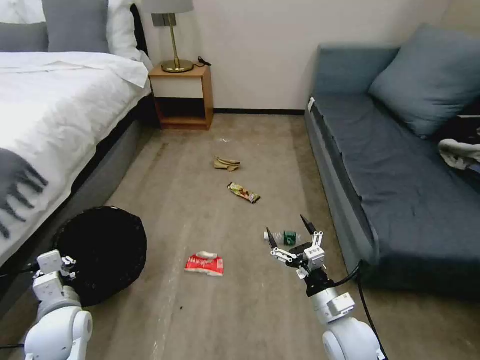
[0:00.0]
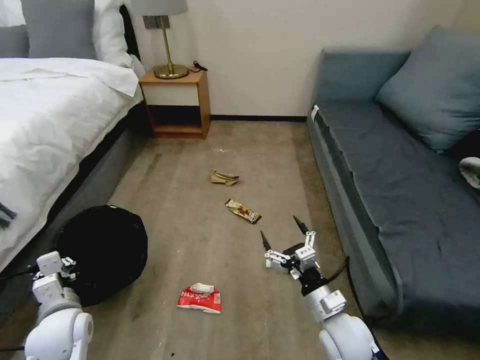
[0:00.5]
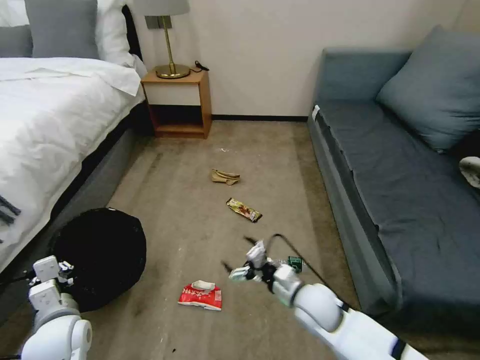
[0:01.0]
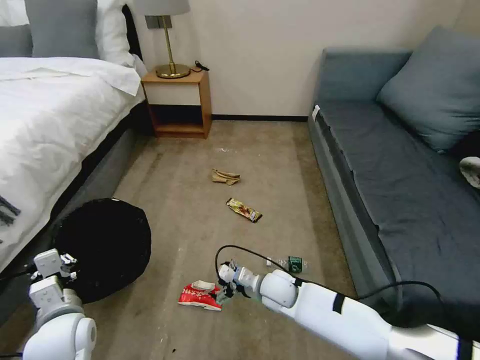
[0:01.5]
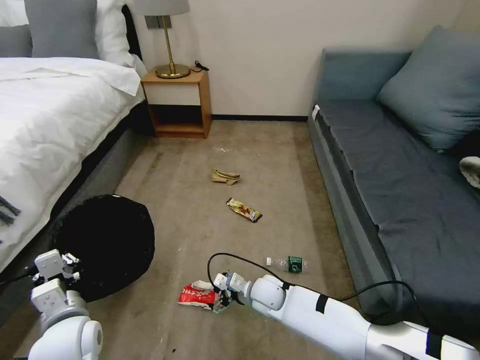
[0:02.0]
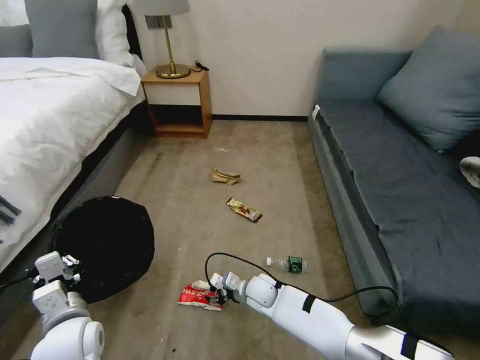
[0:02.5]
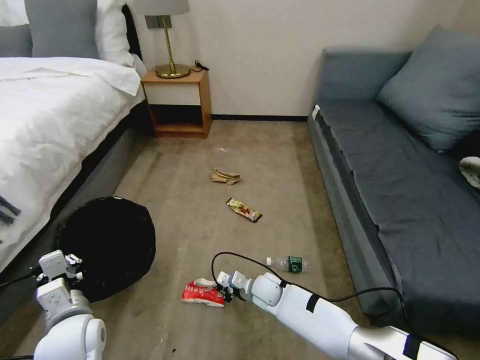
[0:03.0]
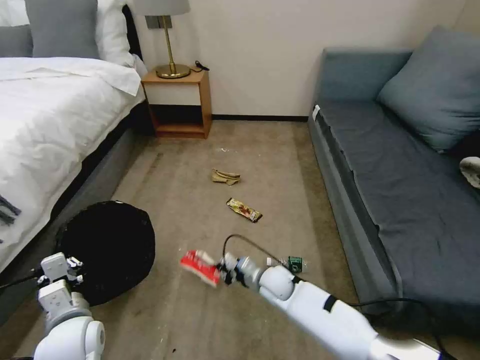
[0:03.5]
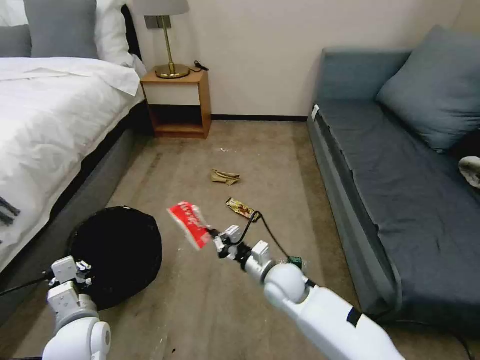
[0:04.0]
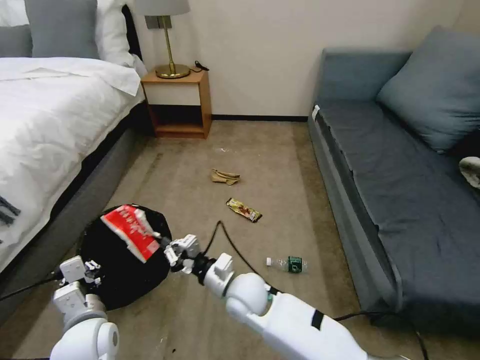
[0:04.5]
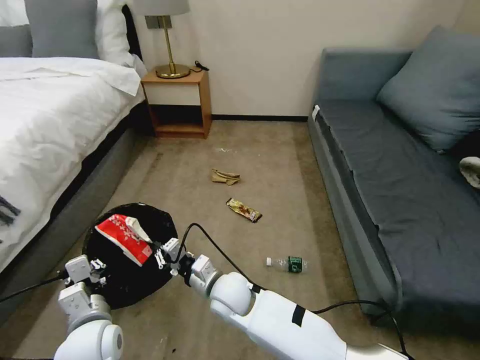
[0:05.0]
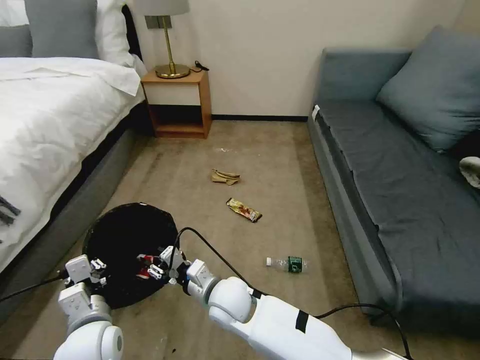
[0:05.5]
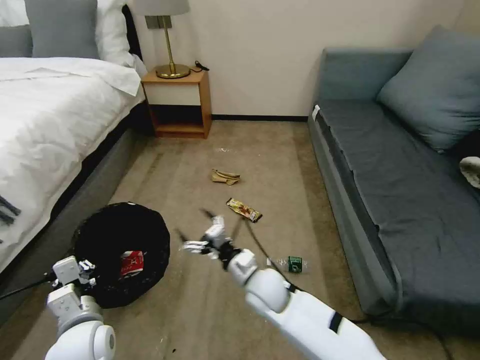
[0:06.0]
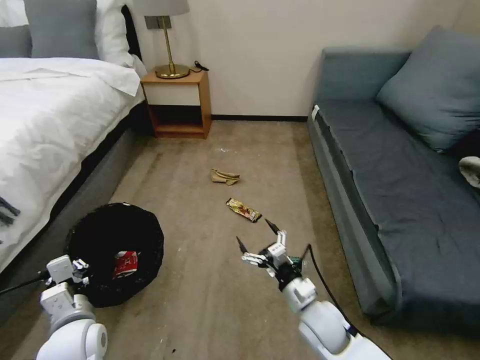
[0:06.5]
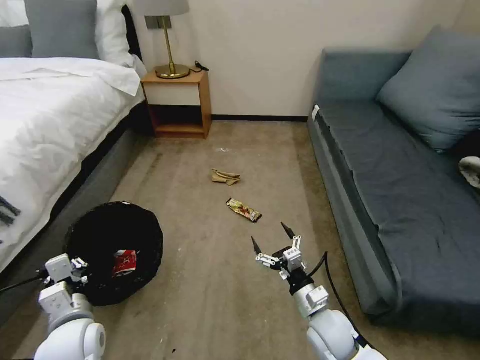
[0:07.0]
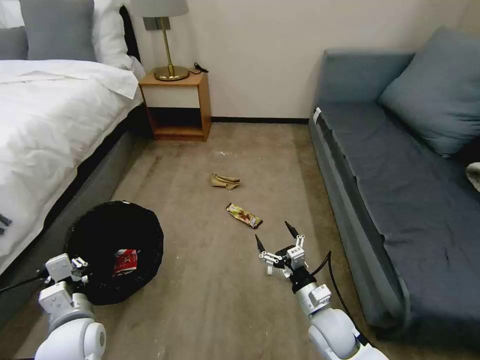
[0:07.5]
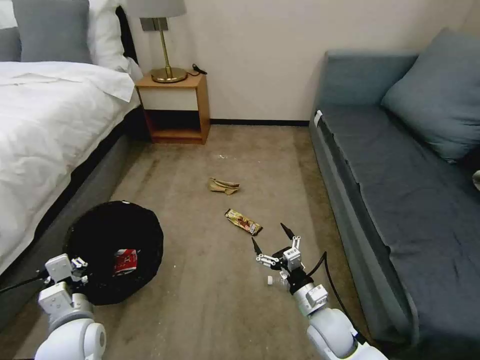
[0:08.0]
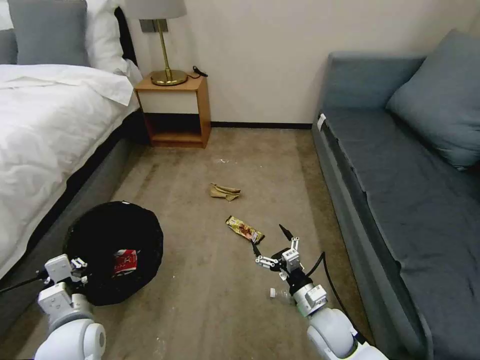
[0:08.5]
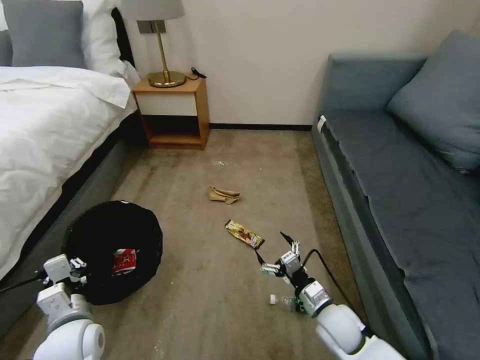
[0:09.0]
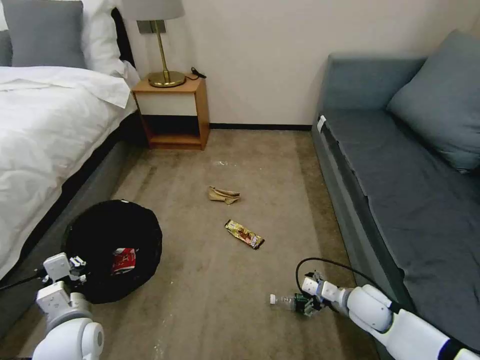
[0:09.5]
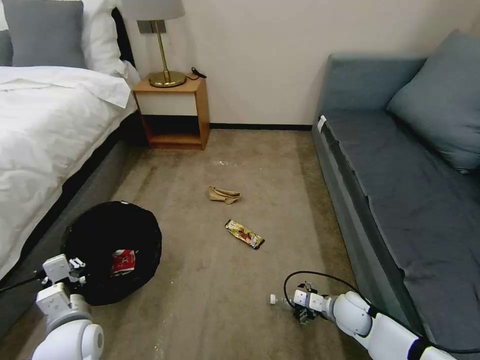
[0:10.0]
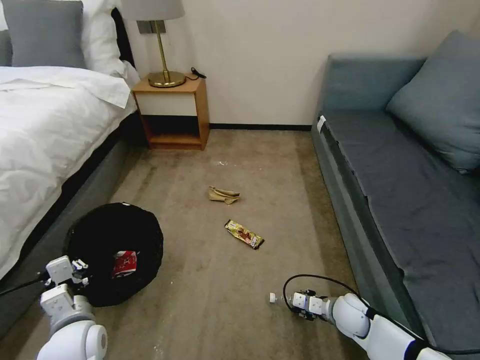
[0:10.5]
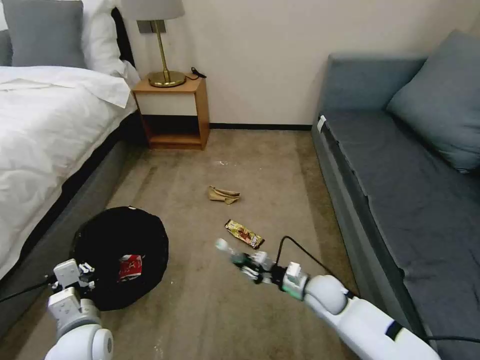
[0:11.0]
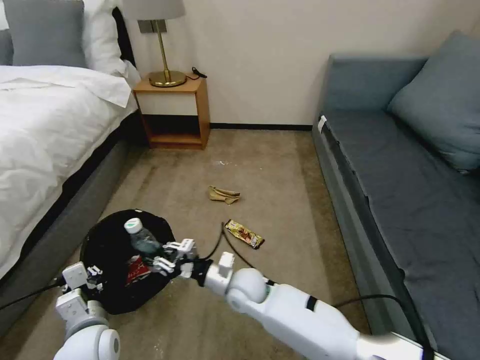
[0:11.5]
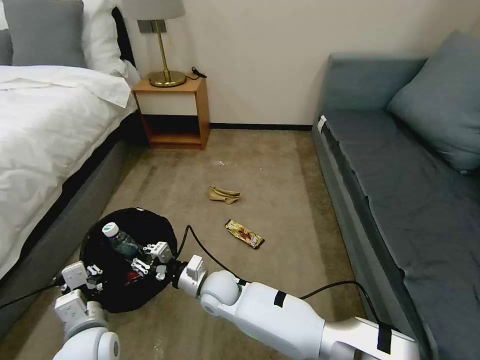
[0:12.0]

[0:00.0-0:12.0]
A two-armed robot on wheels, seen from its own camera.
Task of the whole recording: Pick up the trash bin, then pick up the garbage on the floor and place it into the trash bin.
0:00.0 to 0:02.0: The left gripper goes roughly 5 cm to the right; the right gripper travels to the left, forward and downward by about 20 cm.
0:02.0 to 0:04.0: The right gripper moves upward, approximately 10 cm, and closes up.
0:04.0 to 0:06.0: The right gripper reaches some 15 cm to the left, then returns, and opens up.
0:06.0 to 0:08.0: The right gripper is displaced to the right and backward by about 15 cm.
0:08.0 to 0:10.0: The right gripper shifts approximately 10 cm to the right and forward.
0:10.0 to 0:12.0: The right gripper travels to the left by some 35 cm, and closes its fingers.

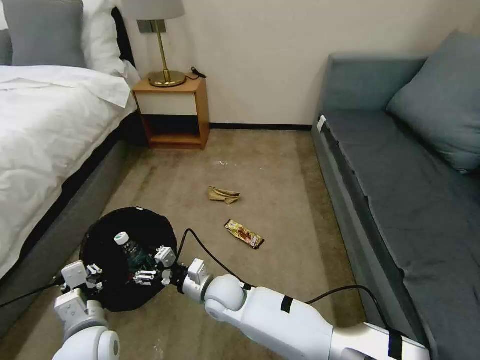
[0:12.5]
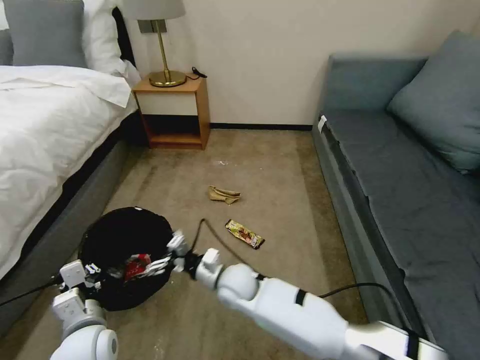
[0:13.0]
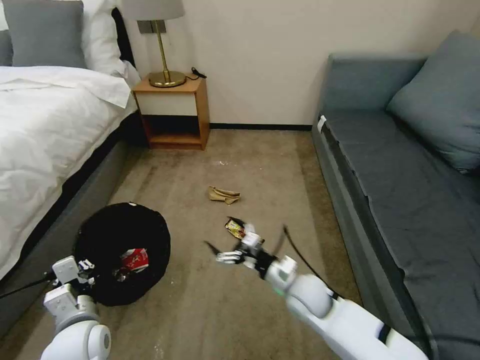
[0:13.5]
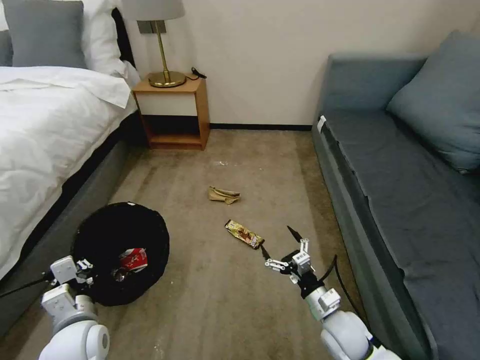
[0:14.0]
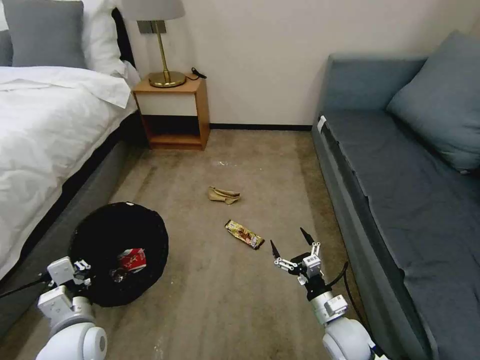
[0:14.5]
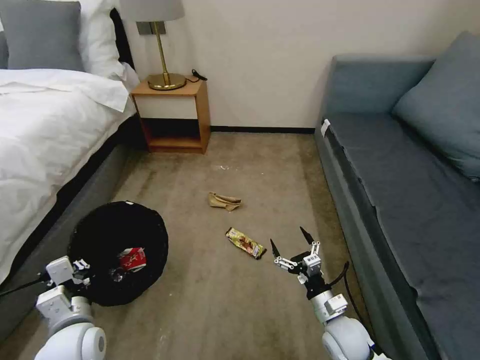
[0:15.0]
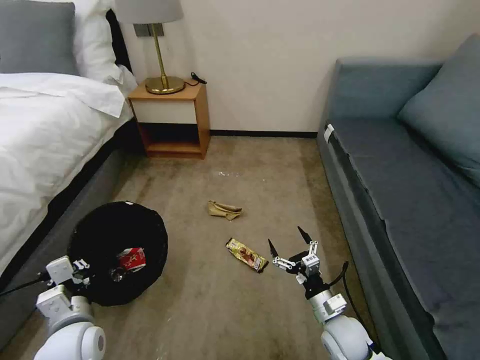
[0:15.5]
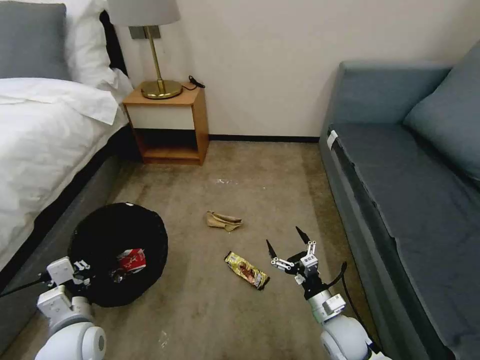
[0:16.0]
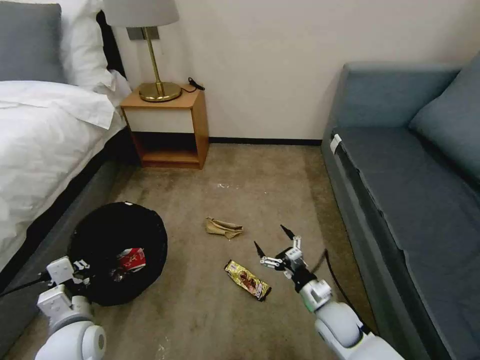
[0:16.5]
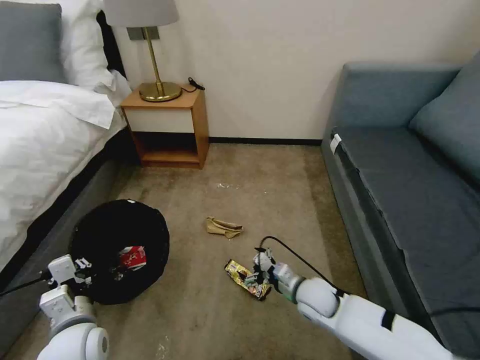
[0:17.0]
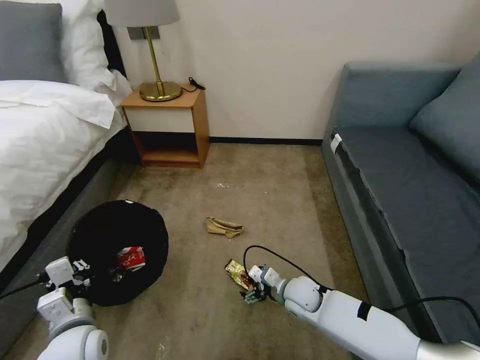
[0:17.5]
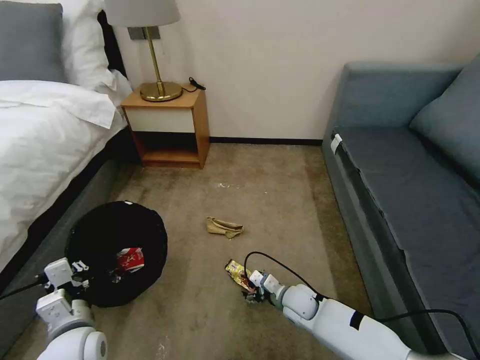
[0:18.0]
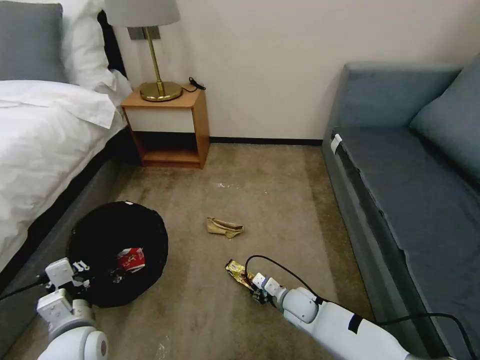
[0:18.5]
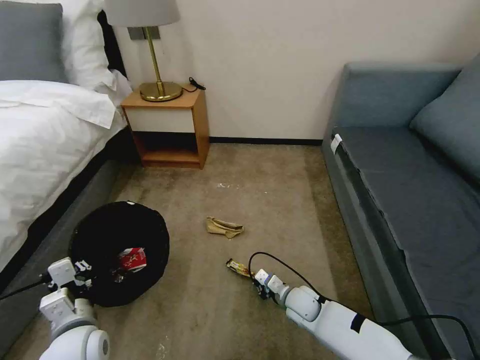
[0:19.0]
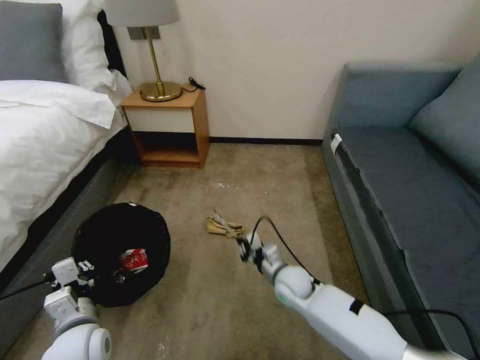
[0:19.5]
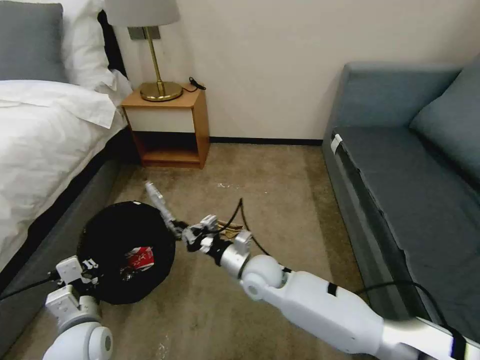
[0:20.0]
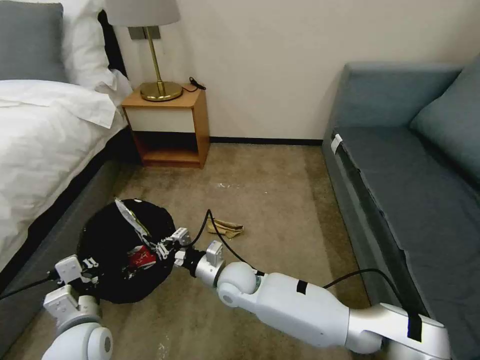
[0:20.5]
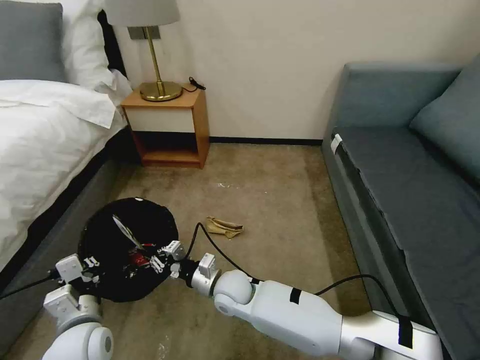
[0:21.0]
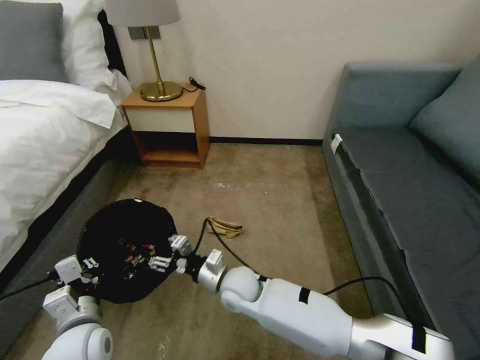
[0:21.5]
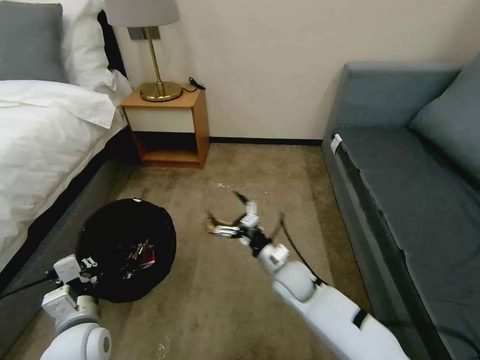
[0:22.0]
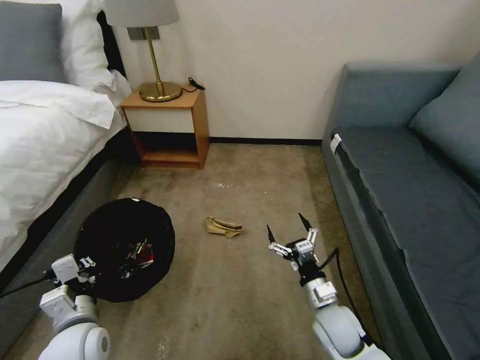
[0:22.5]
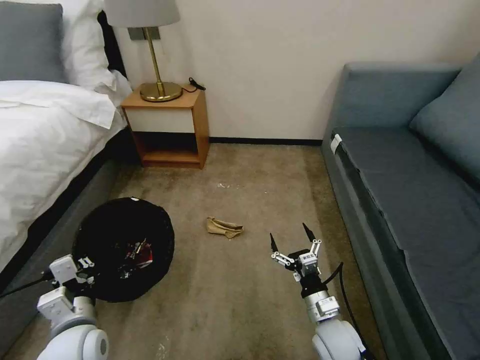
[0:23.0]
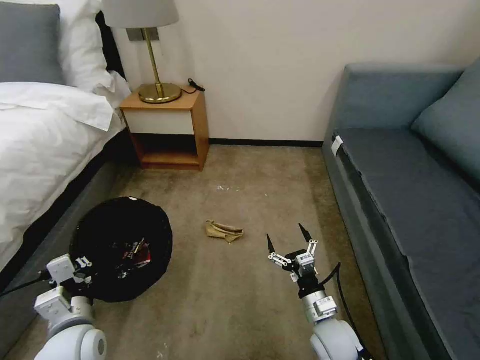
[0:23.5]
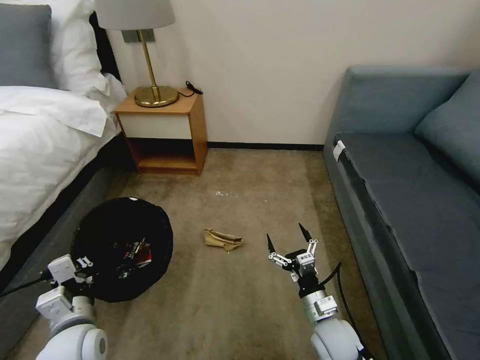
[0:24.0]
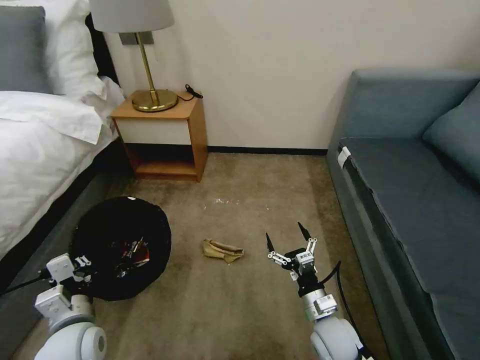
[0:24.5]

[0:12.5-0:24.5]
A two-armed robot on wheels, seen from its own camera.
Task of the whole recording: Pick up the trash bin, then pick up the garbage on the floor and place it into the trash bin.
0:12.5 to 0:14.5: The right gripper shifts roughly 30 cm to the right.
0:16.5 to 0:18.5: The right gripper goes roughly 10 cm to the left, forward and downward, and closes up.
0:18.5 to 0:20.5: The right gripper goes about 20 cm to the left and upward, and closes up.
0:20.5 to 0:22.5: The right gripper shifts about 20 cm to the right, and opens its fingers.
0:22.5 to 0:24.5: There are only small adjustments of the grippers.

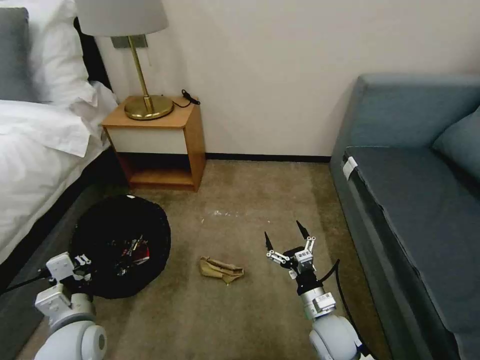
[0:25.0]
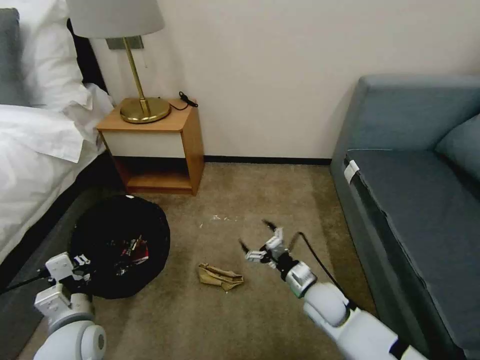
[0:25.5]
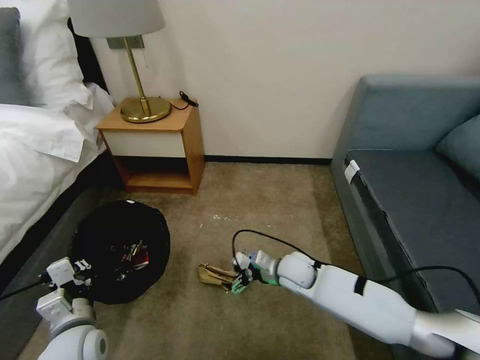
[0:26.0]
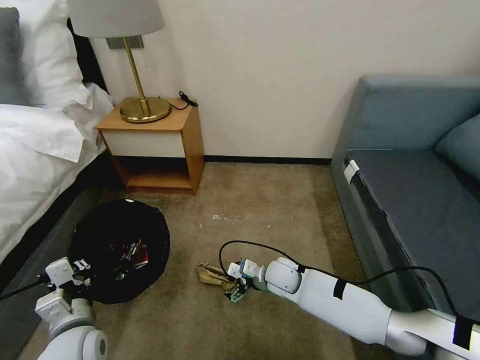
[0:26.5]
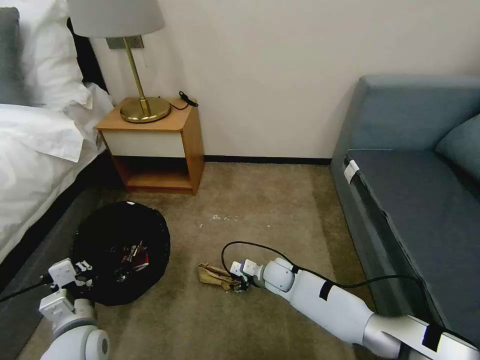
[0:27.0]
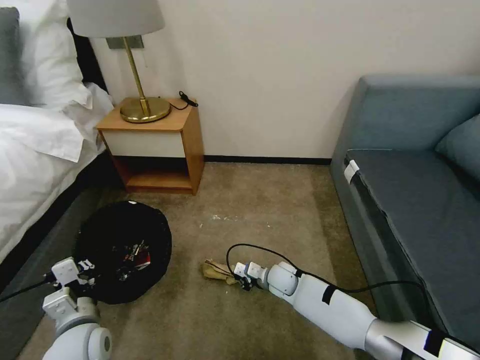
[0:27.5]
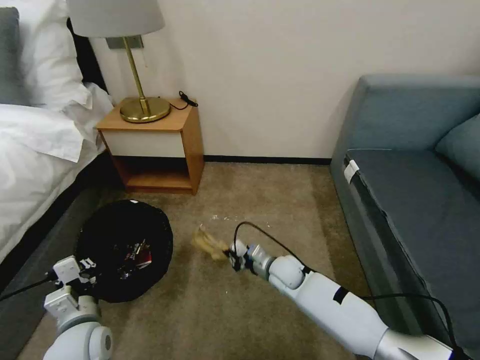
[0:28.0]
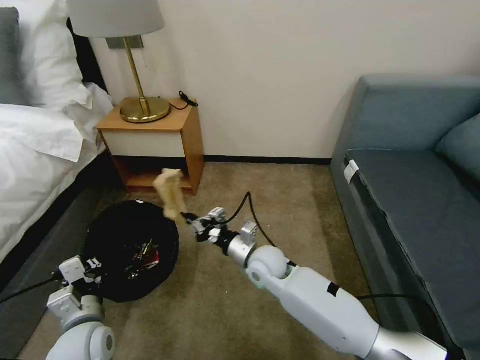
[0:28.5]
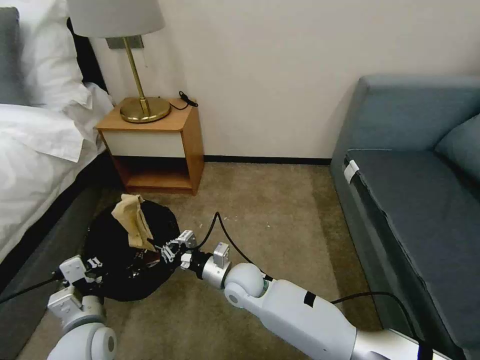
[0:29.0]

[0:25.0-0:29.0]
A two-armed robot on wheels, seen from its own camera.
Task of the whole recording: Pick up the trash bin, then pick up the garbage on the floor and place it into the trash bin.
0:25.0 to 0:27.0: The right gripper moves forward and to the left, roughly 20 cm.
0:27.0 to 0:29.0: The right gripper shifts approximately 15 cm to the left, upward and backward, and closes.
